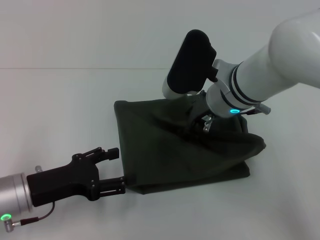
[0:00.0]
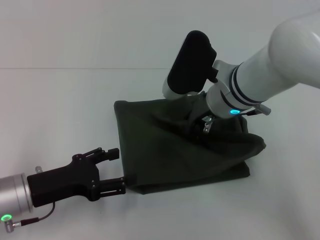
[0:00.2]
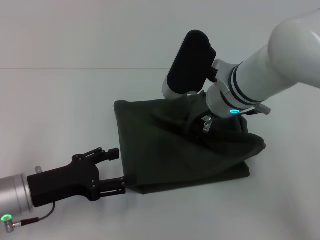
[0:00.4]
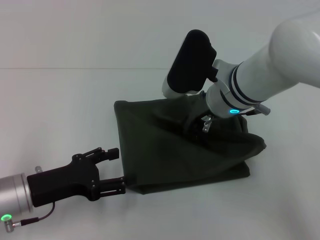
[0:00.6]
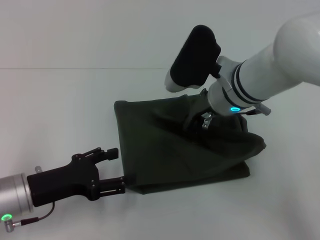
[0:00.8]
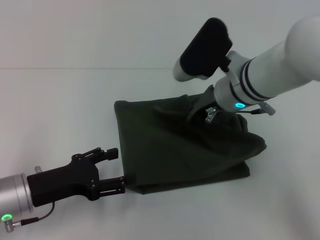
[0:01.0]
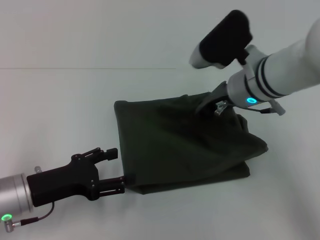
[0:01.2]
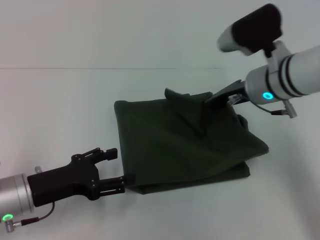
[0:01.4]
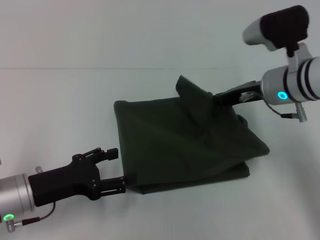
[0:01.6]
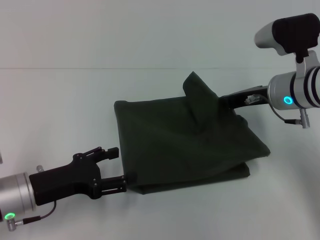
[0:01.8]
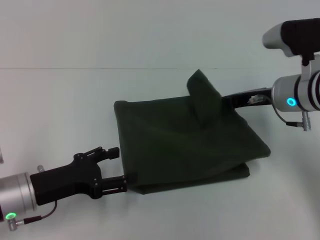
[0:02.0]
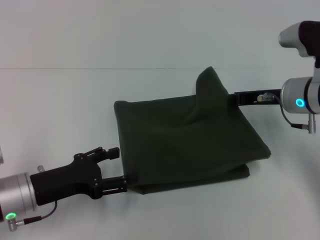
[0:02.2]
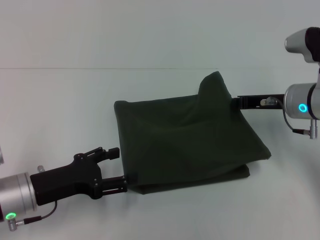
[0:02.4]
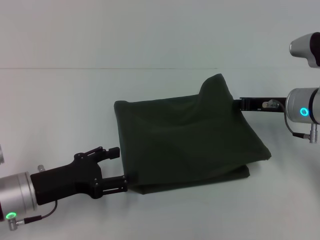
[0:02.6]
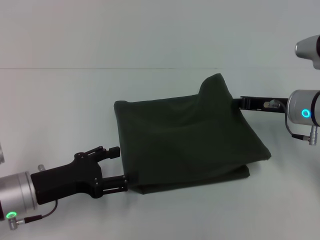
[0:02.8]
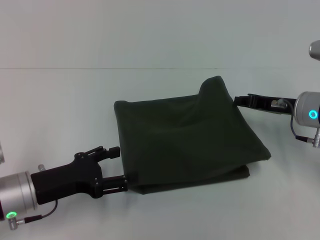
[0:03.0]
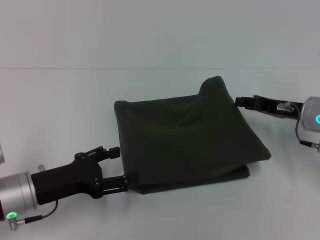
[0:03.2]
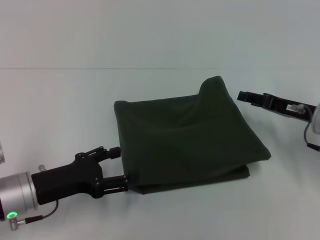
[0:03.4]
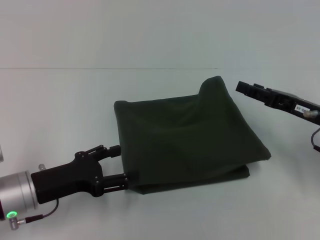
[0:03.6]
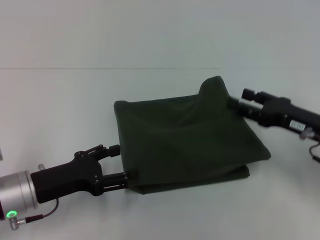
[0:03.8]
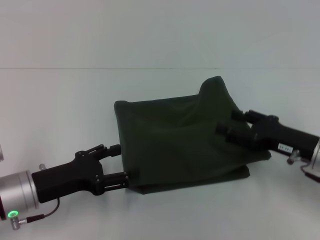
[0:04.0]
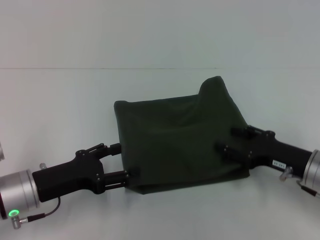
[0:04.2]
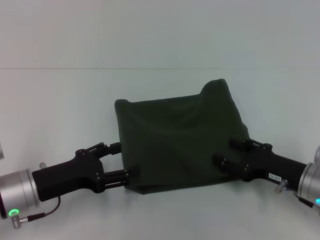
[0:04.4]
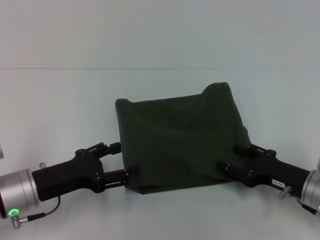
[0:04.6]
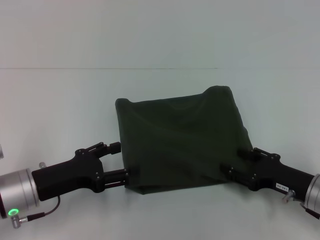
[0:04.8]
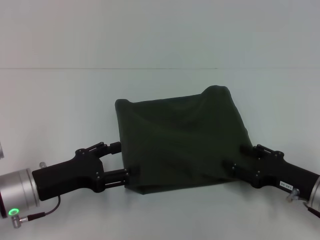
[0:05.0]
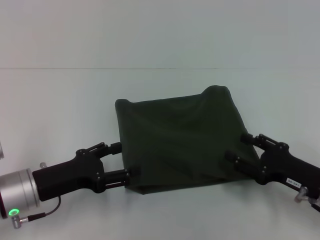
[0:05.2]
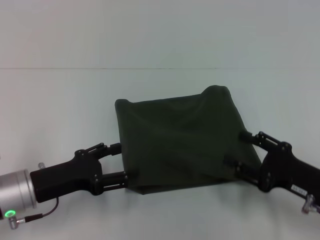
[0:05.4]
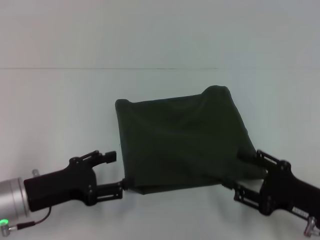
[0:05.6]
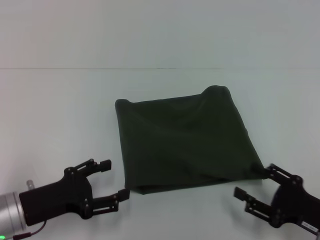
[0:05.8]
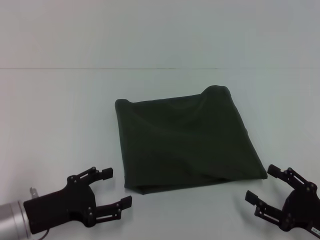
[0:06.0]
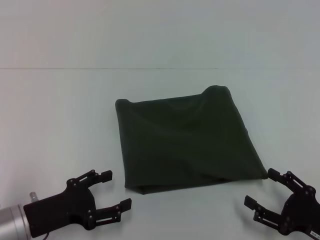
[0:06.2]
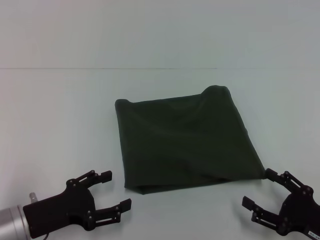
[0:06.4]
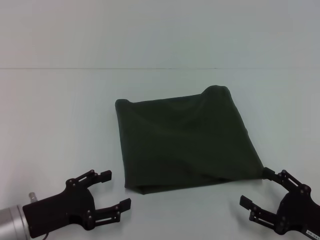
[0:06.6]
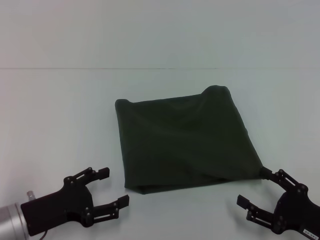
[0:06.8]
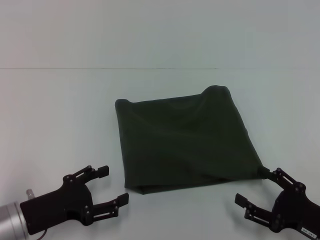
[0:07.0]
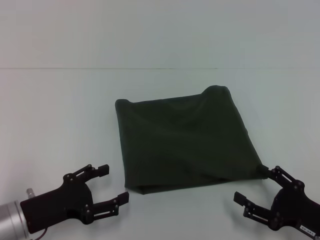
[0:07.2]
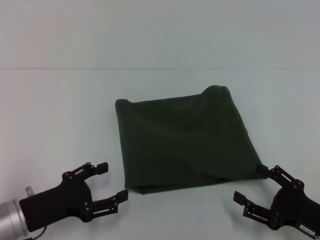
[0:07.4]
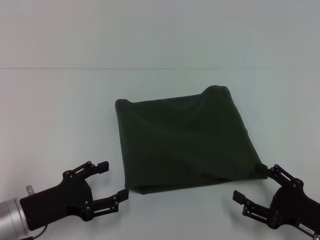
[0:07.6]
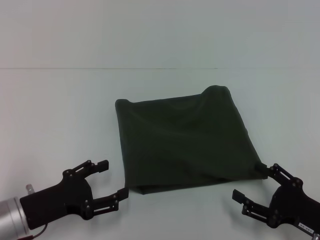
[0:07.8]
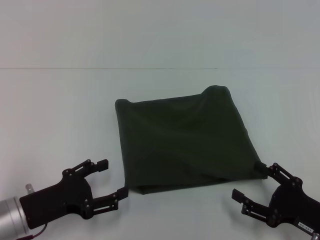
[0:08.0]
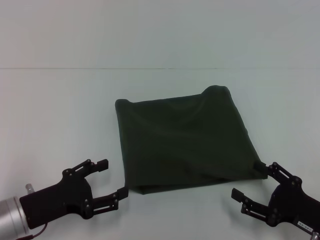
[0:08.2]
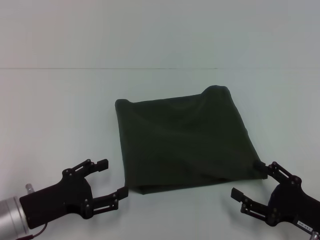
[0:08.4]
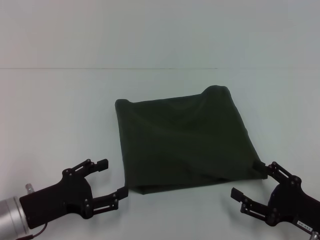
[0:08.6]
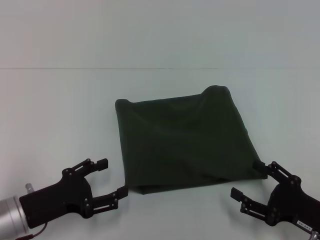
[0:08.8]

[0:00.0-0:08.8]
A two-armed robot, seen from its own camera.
0:00.0 to 0:01.4: The right gripper moves to the right, roughly 5 cm, and closes up.
0:01.4 to 0:03.0: The right gripper moves to the right and downward, approximately 10 cm.
0:03.0 to 0:04.4: The right gripper goes approximately 10 cm backward and downward, and opens its fingers.
0:04.4 to 0:05.8: The right gripper heads backward, covering roughly 10 cm.
0:05.8 to 0:07.4: The grippers stay close to where they were, moving slightly.
0:07.4 to 0:08.8: The two grippers keep their place.
